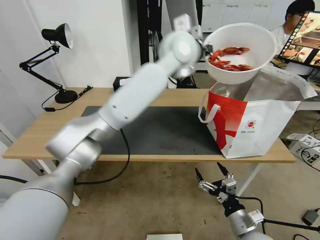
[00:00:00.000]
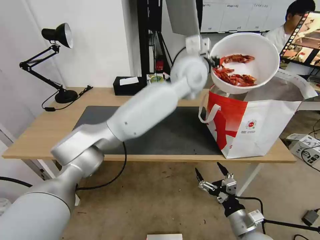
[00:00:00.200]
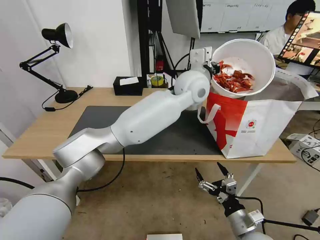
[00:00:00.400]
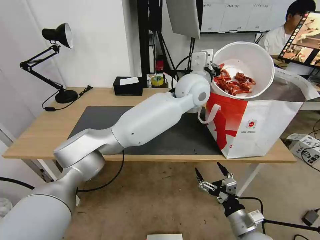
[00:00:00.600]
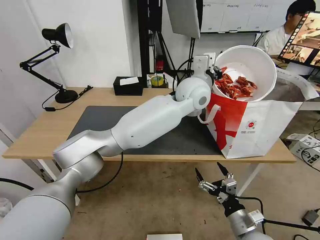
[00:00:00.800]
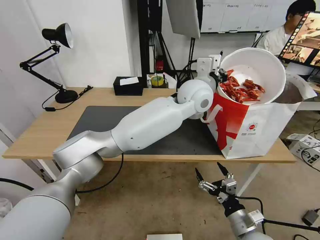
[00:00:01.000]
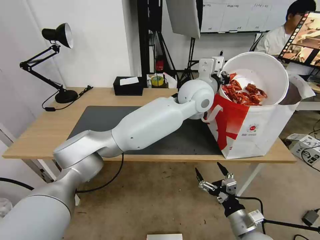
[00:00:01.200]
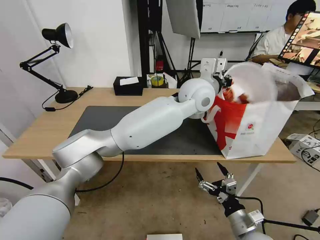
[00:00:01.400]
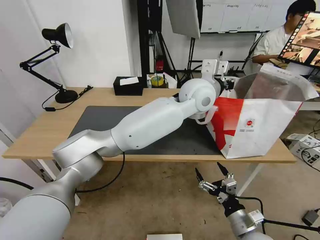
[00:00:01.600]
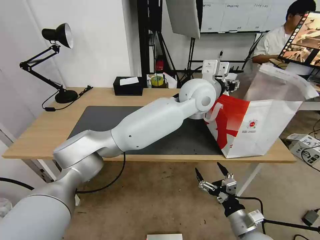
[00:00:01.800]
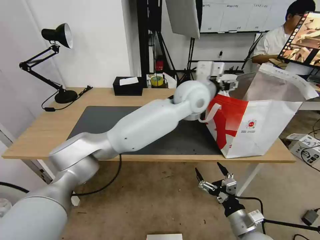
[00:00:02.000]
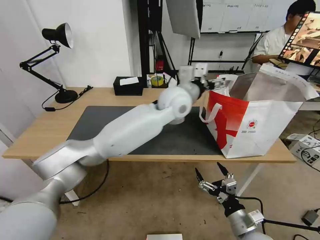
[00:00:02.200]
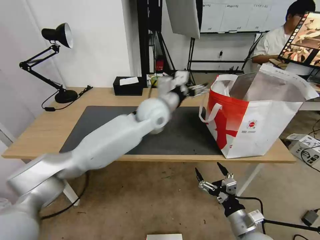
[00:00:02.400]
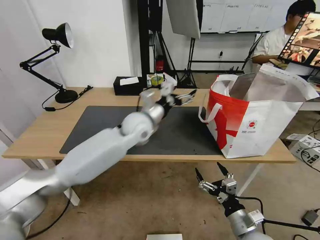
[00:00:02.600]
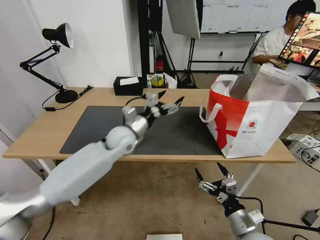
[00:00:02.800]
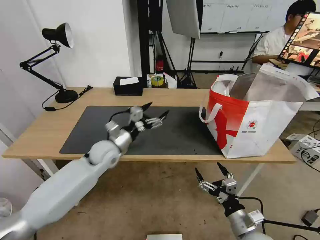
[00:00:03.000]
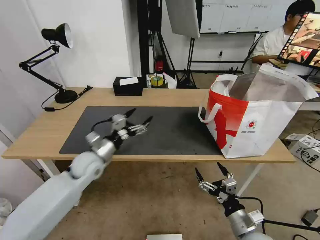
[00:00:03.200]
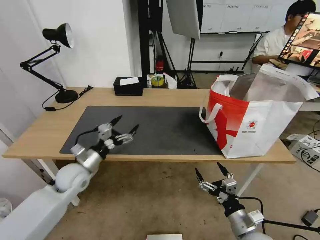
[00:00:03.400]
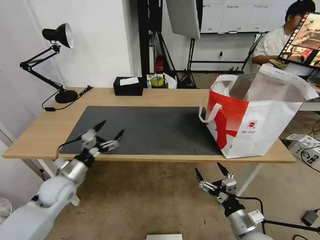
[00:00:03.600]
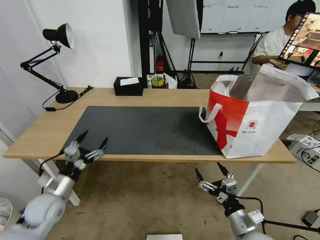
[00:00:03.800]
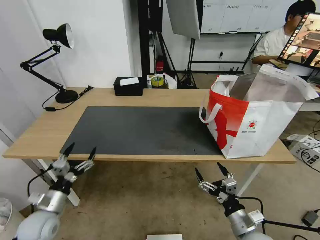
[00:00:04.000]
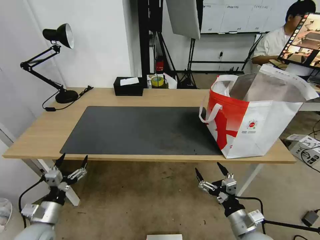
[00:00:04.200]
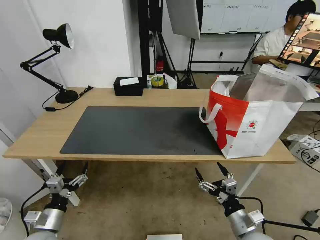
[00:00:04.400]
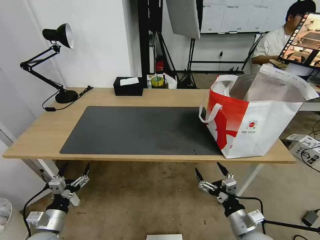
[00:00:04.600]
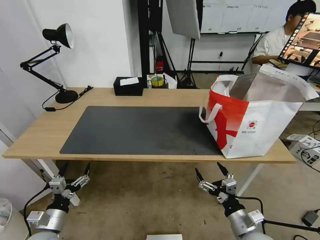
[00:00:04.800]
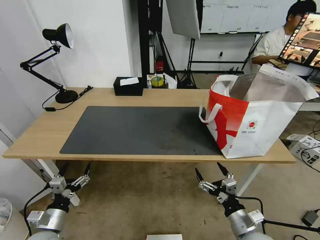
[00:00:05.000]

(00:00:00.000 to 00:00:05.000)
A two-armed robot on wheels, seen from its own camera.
Task of the whole recording: Pick up the trash from the table and place it into the takeout bag.
00:00:00.000 - 00:00:01.600: The left gripper goes about 10 cm downward, and opens its fingers.
00:00:01.600 - 00:00:03.400: The left gripper heads to the left and downward, covering about 50 cm, and opens up.
00:00:03.400 - 00:00:05.000: The left gripper moves backward and downward, approximately 20 cm.
